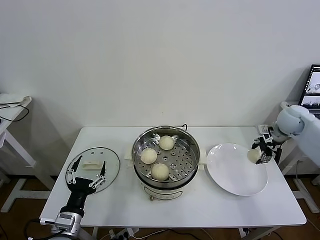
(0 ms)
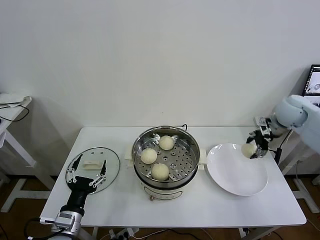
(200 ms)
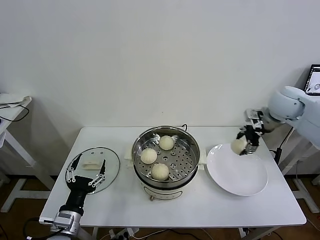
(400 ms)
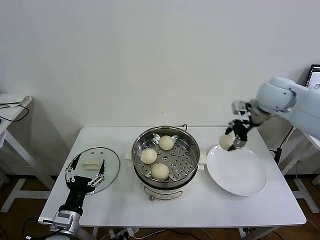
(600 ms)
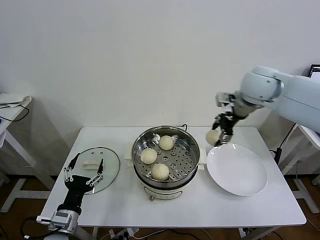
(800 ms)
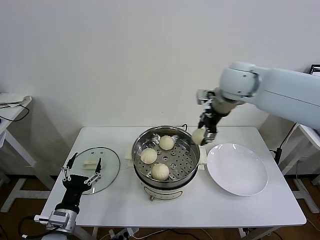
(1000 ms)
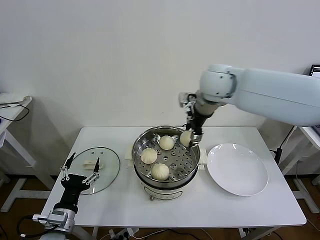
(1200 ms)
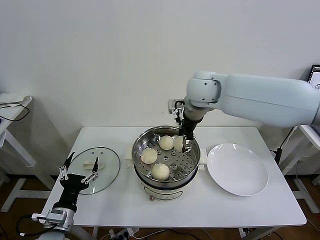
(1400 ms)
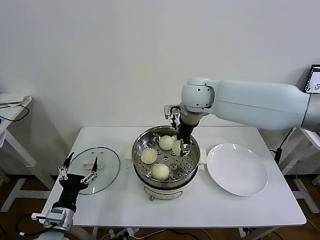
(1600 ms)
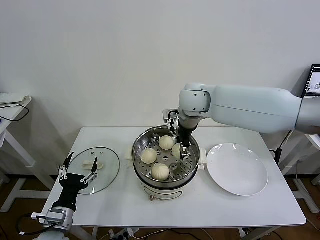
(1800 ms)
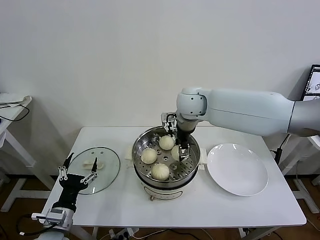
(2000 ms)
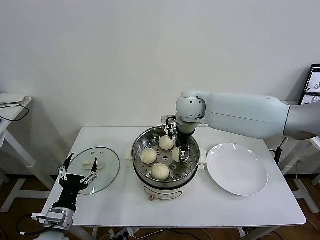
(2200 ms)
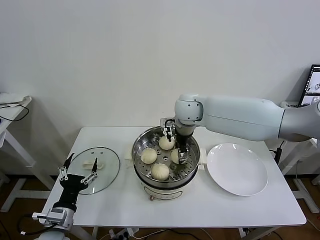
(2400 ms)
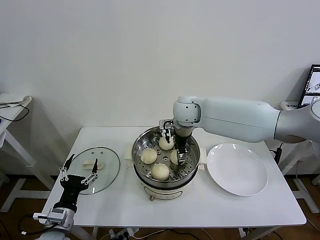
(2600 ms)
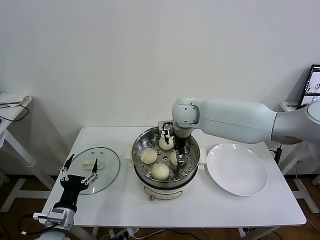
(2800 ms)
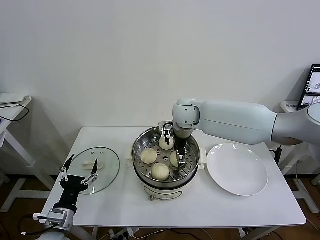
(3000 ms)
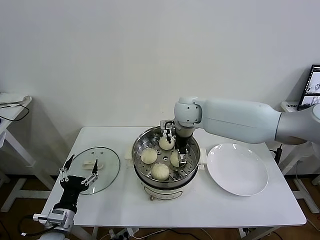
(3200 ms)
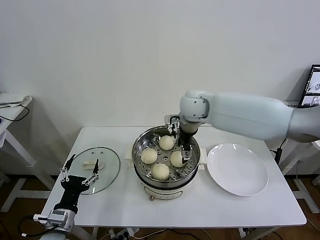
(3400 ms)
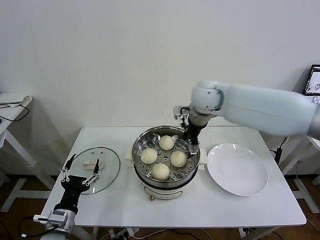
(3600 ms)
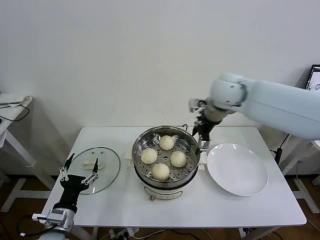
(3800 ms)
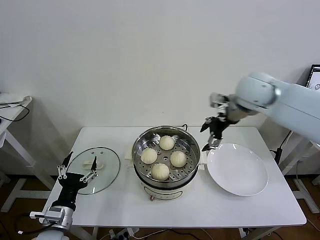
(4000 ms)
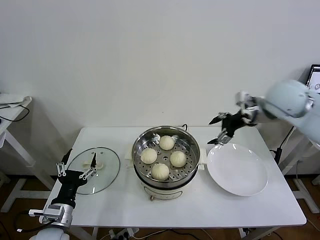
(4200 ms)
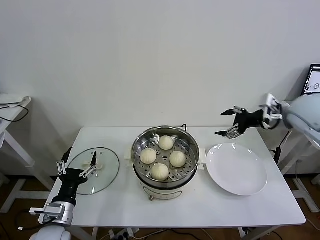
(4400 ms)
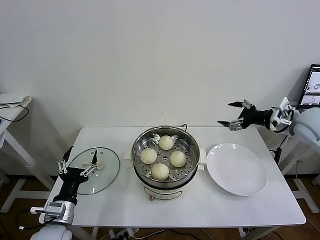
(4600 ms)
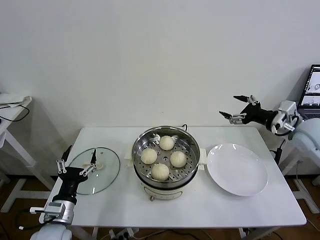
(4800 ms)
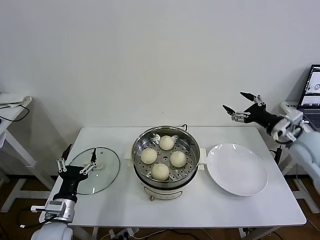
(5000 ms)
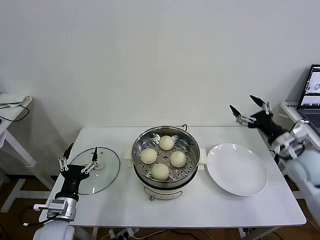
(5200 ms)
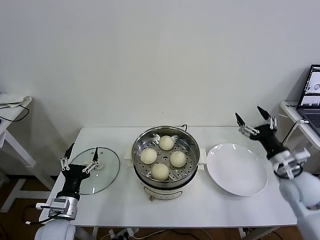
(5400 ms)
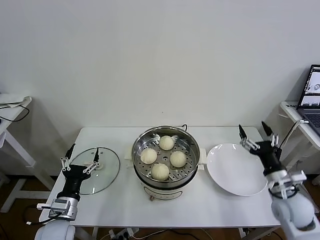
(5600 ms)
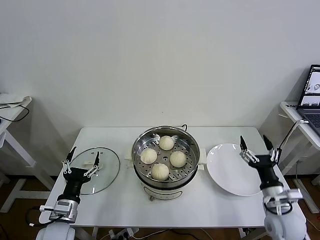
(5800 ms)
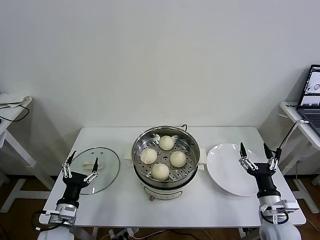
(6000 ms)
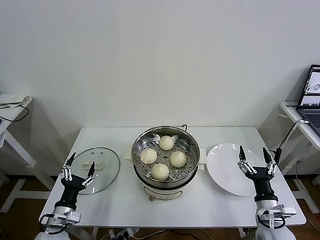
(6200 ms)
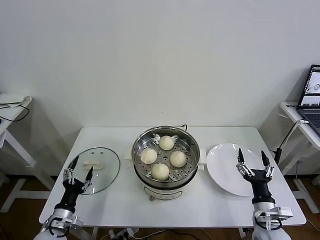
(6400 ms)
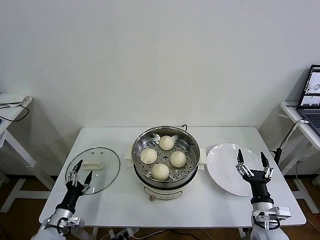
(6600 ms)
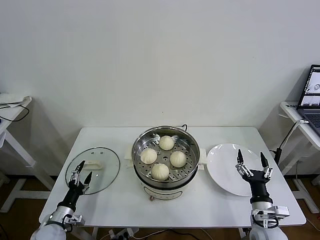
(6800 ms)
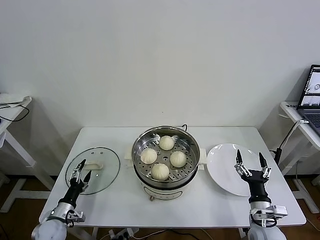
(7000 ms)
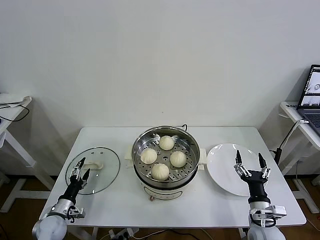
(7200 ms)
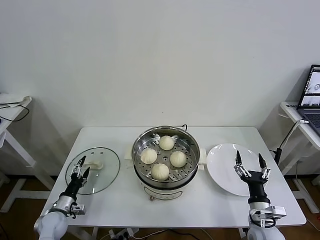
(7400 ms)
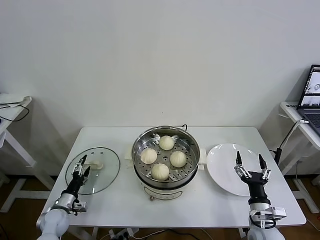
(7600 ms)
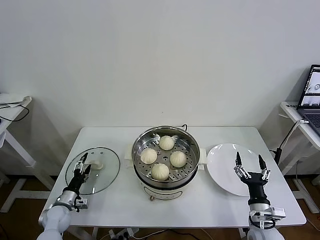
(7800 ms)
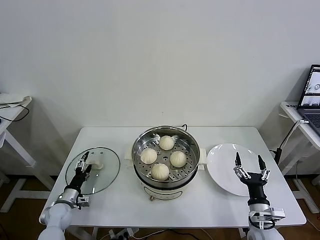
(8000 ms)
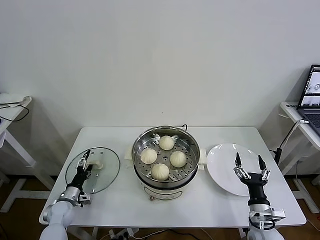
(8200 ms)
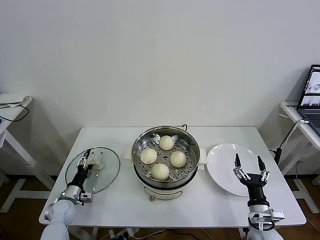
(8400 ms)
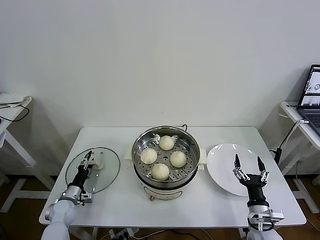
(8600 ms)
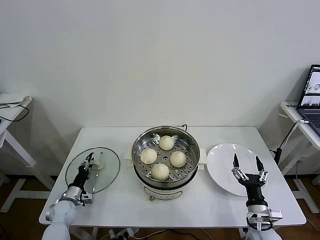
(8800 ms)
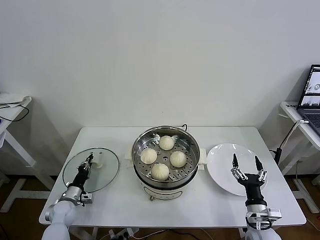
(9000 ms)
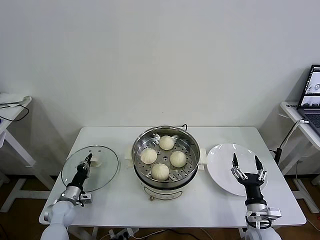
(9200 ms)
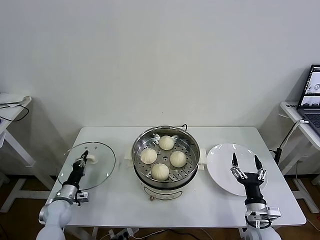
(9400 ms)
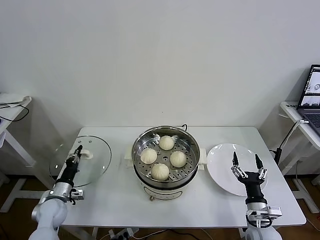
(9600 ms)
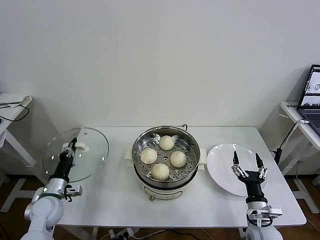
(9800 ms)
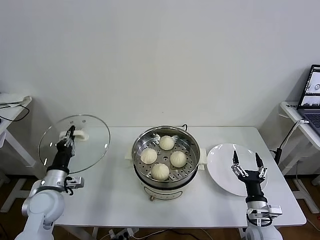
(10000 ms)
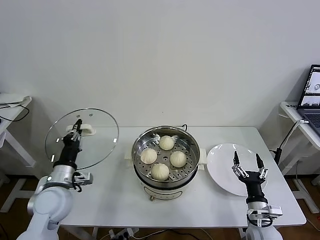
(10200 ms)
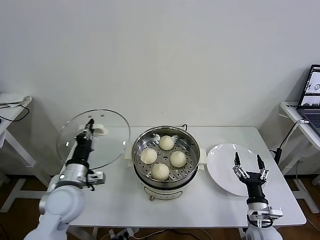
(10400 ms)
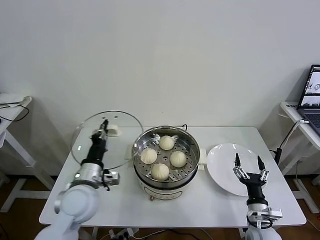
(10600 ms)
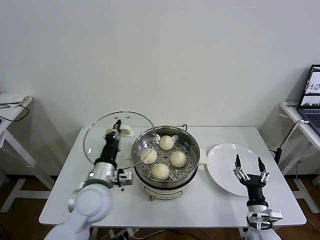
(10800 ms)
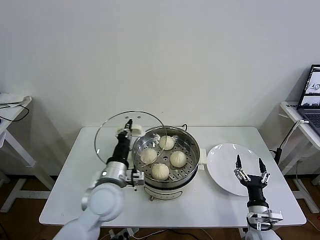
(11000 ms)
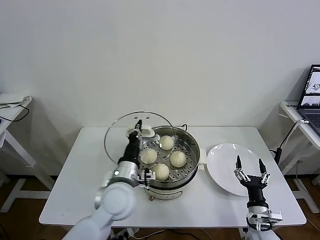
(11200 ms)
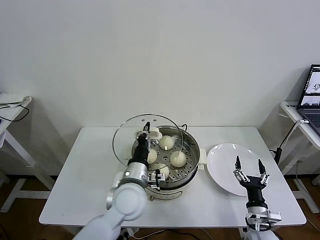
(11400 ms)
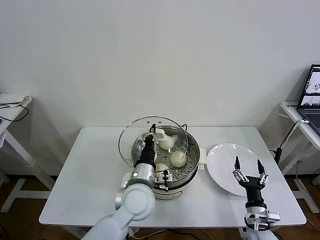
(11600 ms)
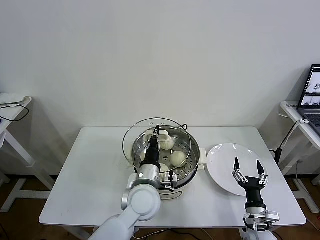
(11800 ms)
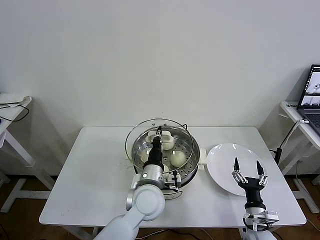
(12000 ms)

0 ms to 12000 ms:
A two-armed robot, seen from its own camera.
Task of the whole recording: take steamed baozi put them in steamer then cover it.
Step, 0 ms to 3200 ms: Place the baozi on the steamer with right gripper.
Step, 3400 ms to 9200 ms: Grasp the pot lid with left gripper.
0 ms to 1600 ms: The right gripper is displaced to the left by approximately 35 cm.
1600 ms to 3000 ms: The right gripper travels downward by about 10 cm, and opens its fingers.
3000 ms to 4400 ms: The right gripper heads to the right, covering some 30 cm, and opens up.
4400 ms to 6000 ms: The right gripper moves downward and backward, about 35 cm.
6000 ms to 7600 ms: The right gripper shifts by approximately 5 cm; the left gripper is displaced downward, to the left and forward by roughly 15 cm.
7600 ms to 9000 ms: The left gripper closes.
9000 ms to 10400 ms: The left gripper moves upward and to the right, roughly 25 cm.
10400 ms to 12000 ms: The left gripper is displaced to the right by approximately 25 cm.

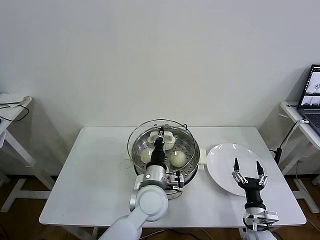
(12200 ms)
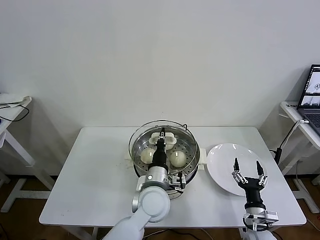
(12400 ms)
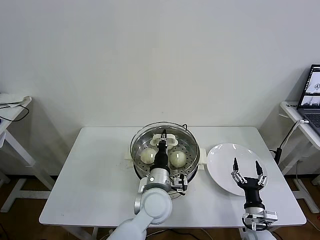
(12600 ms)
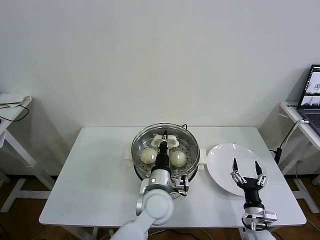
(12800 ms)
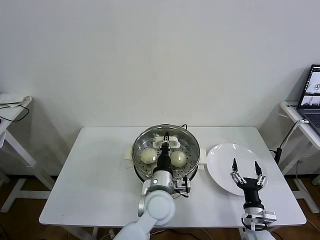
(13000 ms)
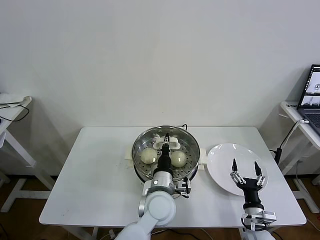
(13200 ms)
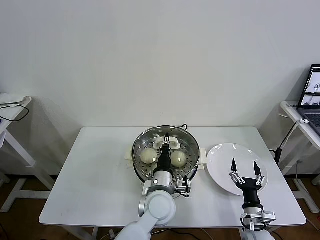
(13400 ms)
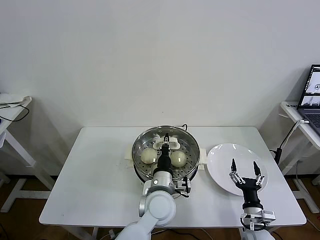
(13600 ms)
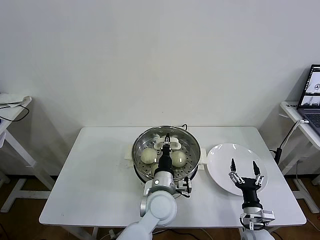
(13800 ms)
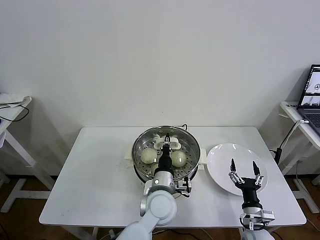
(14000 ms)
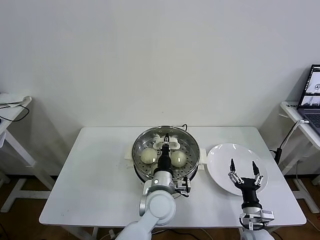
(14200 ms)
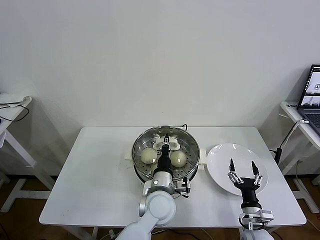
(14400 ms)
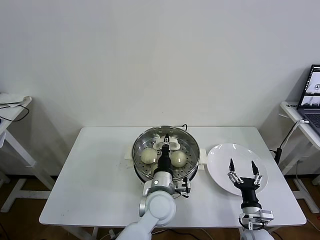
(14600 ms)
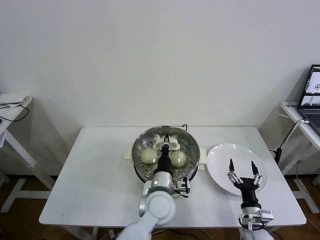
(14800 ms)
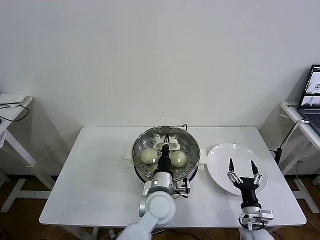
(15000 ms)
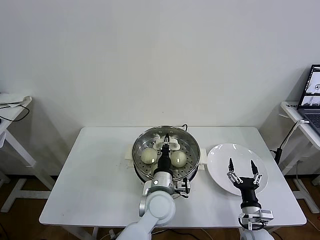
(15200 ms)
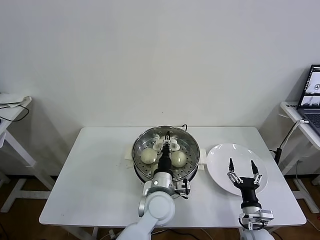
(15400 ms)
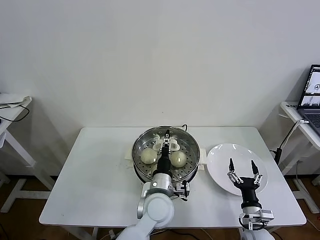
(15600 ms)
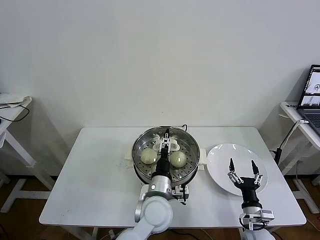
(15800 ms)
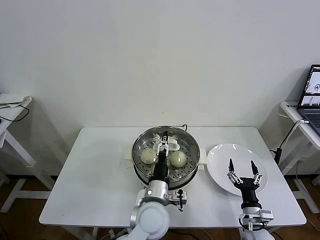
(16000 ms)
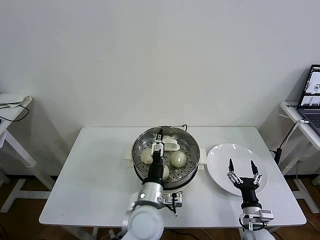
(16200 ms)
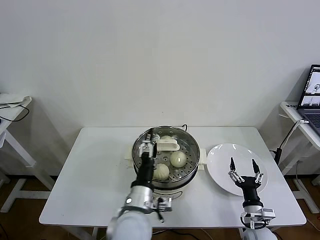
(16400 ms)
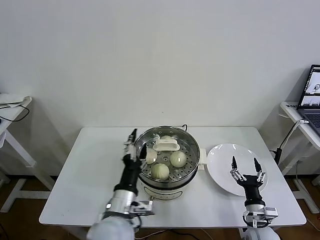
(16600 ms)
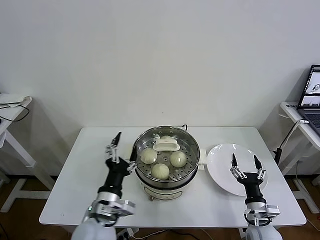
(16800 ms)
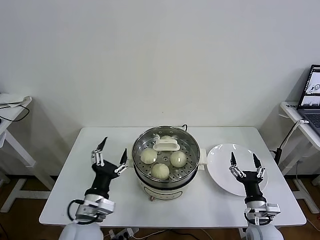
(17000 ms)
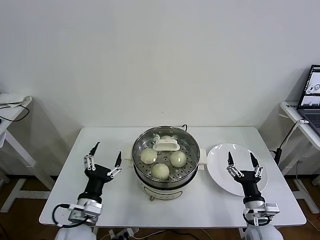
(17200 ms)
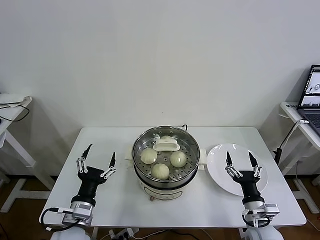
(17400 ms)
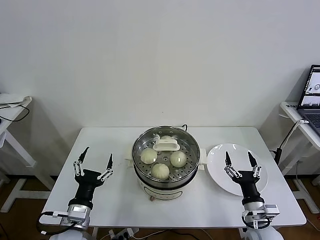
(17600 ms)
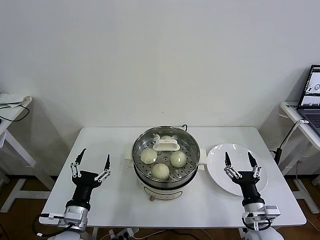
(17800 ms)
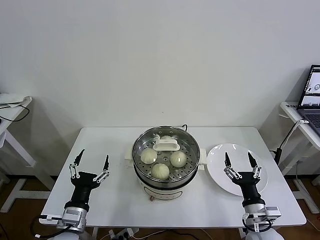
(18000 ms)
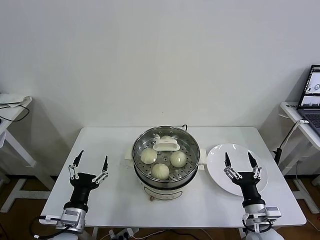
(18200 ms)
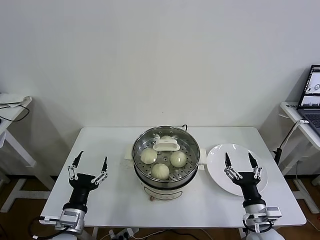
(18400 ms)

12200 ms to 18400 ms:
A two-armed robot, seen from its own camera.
Task of the whole recording: take steamed baozi put them in steamer then cover it.
Step, 12200 ms to 16200 ms: Place the pot lid on the steamer with left gripper.
12200 ms to 13800 ms: The grippers stay close to where they were, moving slightly.
13800 ms to 15400 ms: Both grippers stay put.
15400 ms to 16800 ms: The left gripper heads to the left and backward, covering some 15 cm, and opens its fingers.
16800 ms to 18400 ms: The right gripper heads upward, covering about 5 cm, while the left gripper shifts roughly 15 cm to the left and downward.
